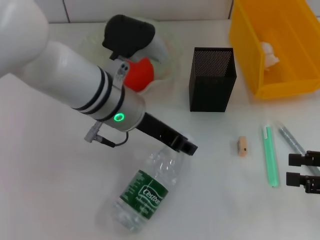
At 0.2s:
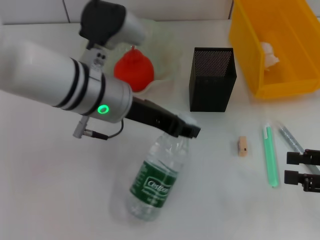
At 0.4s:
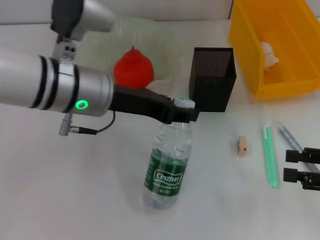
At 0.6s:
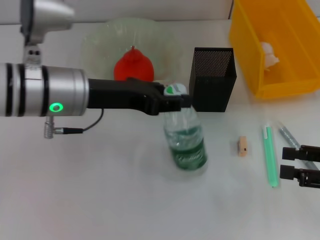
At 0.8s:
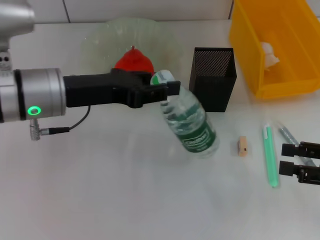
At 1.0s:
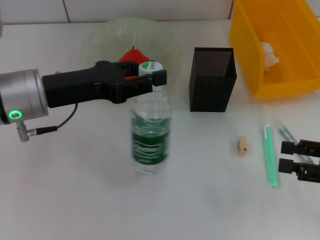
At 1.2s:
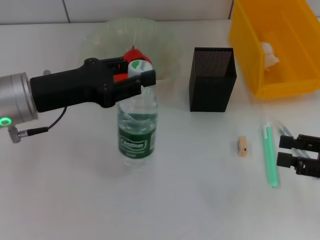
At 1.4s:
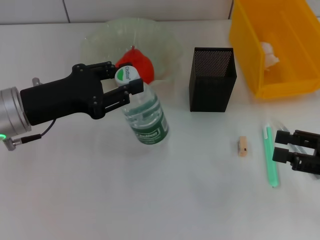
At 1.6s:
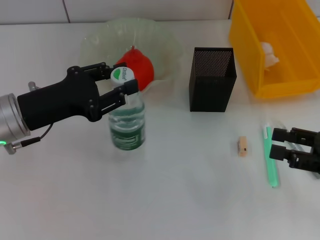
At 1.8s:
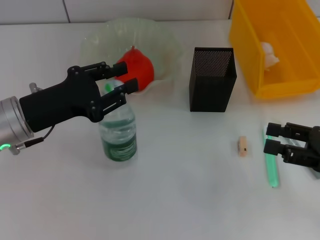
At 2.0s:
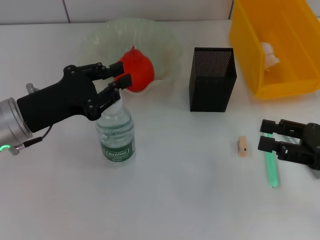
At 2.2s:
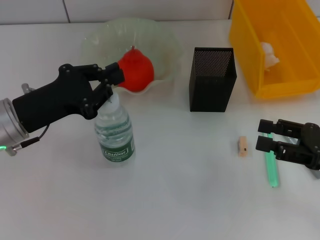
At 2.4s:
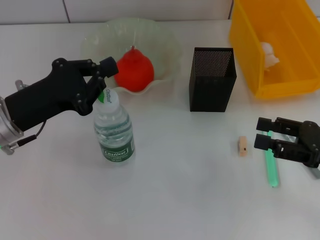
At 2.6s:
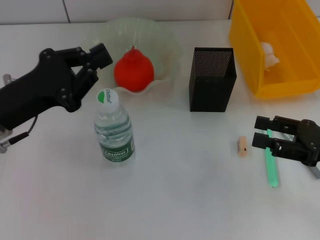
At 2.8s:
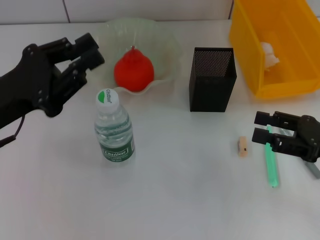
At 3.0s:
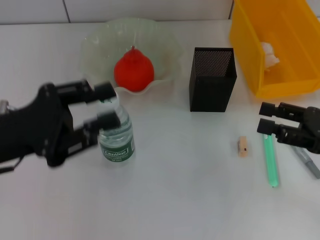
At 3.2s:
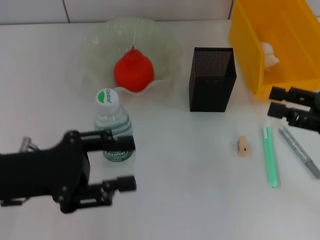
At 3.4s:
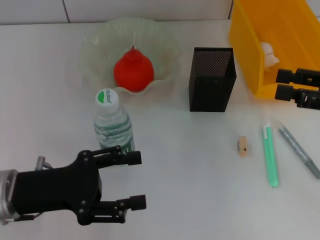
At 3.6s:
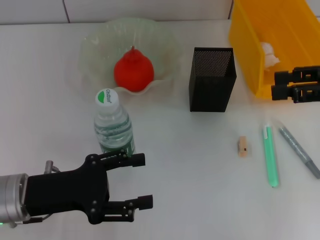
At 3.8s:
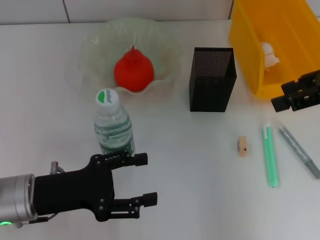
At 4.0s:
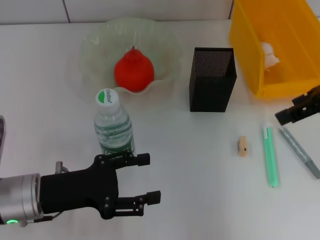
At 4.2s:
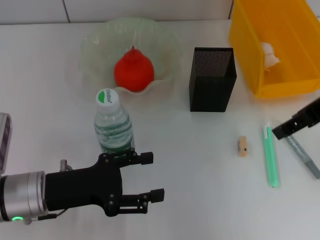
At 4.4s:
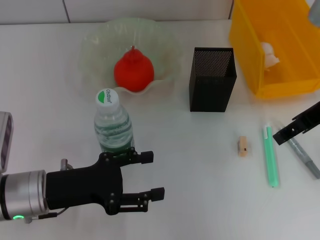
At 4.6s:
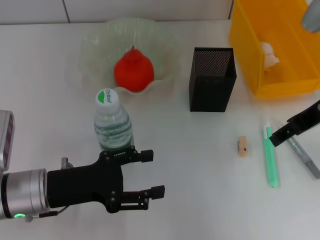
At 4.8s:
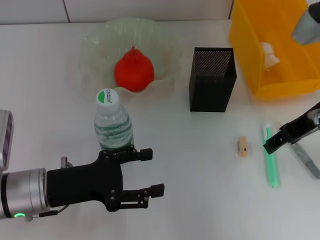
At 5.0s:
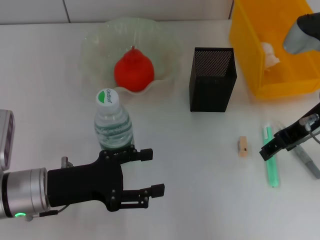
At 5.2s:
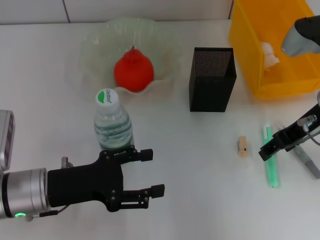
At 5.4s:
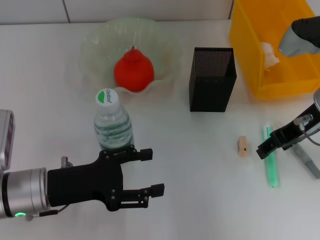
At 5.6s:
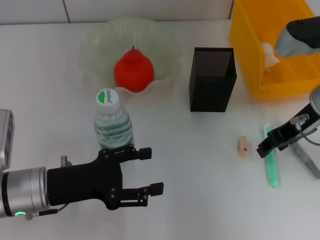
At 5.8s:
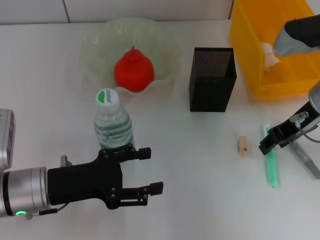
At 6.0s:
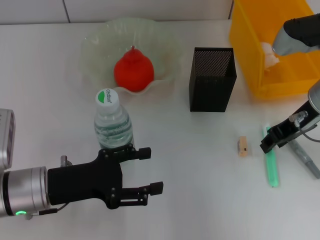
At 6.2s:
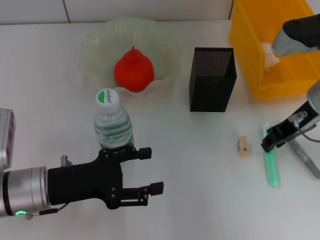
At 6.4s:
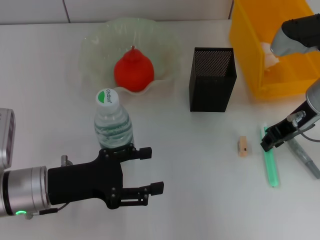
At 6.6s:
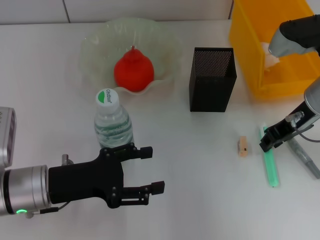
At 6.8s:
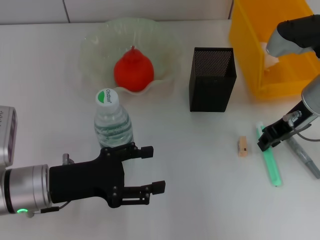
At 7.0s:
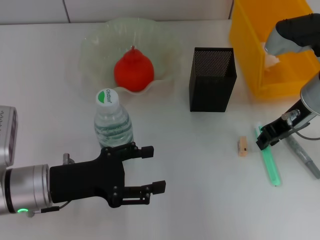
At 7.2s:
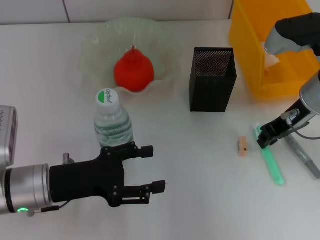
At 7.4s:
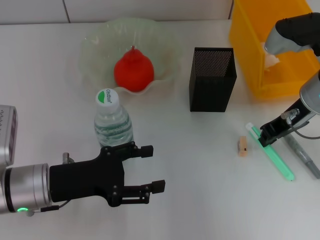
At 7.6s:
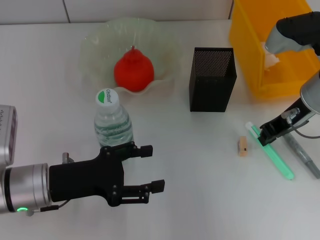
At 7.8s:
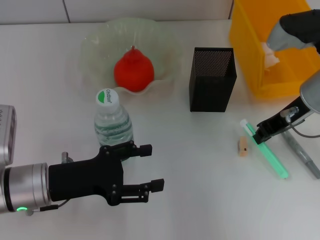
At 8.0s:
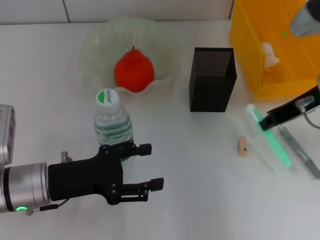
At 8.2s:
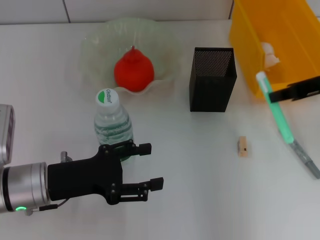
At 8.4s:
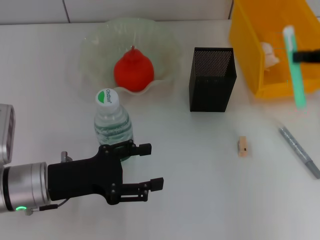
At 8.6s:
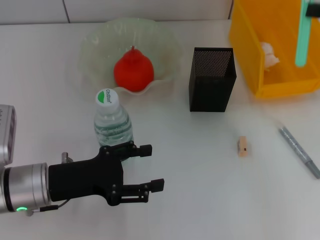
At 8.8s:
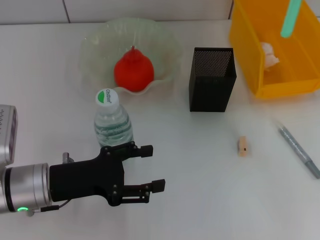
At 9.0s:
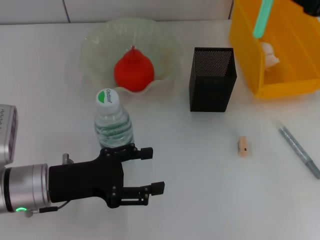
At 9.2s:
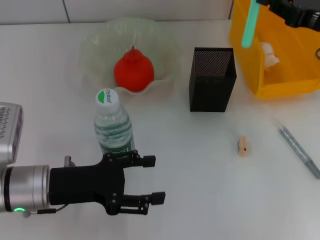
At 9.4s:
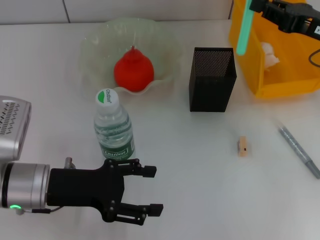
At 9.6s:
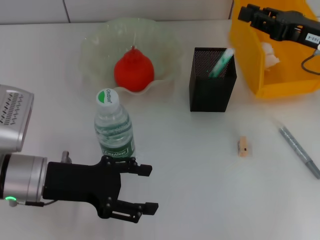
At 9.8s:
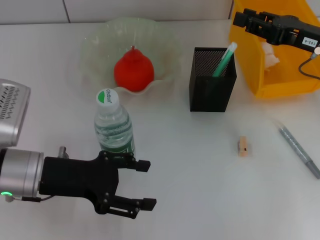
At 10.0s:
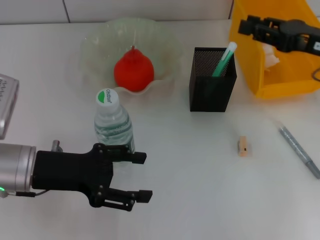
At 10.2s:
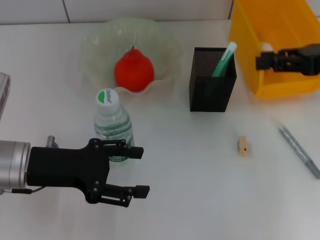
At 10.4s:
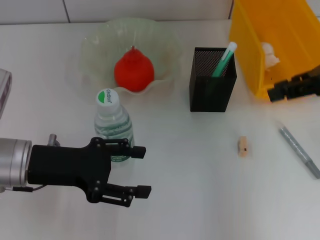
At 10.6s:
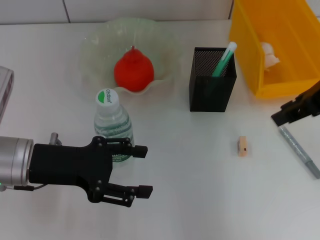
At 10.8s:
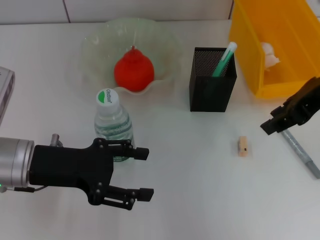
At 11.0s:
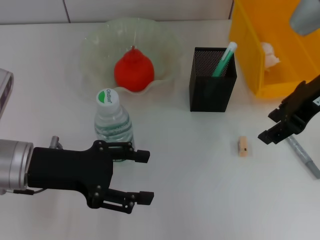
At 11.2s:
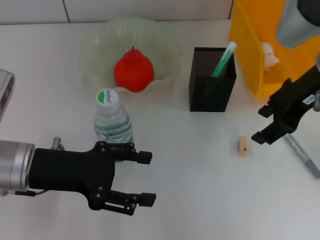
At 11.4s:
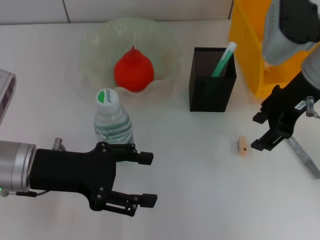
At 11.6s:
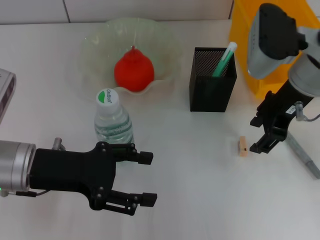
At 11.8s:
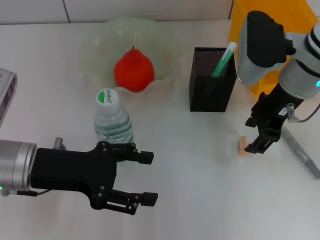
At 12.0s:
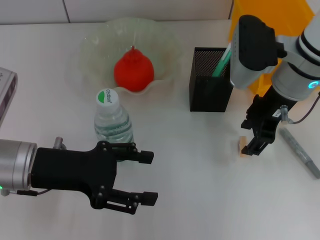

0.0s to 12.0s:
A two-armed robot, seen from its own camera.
Step, 0.0s to 2.4s: Place the water bottle on the table with the left hand.
Step, 2.6s to 7.2s: Grab the blue utility knife with the right hand.
Step, 7.4s to 10.0s: Place the blue utility knife into the pen holder with the right hand.
0.0s to 1.6s: The left gripper shifts about 15 cm to the left.
1.6s to 3.0s: The left gripper changes place by approximately 5 cm.
3.0s to 4.4s: The right gripper is displaced upward, to the left and forward by roughly 15 cm. The left gripper is displaced downward by roughly 10 cm, and opens up.
4.4s to 6.0s: The right gripper travels downward by about 5 cm.
6.0s to 7.6s: The right gripper closes up.
7.6s to 9.0s: The right gripper moves to the right, some 10 cm.
9.0s to 10.4s: The grippers both shift upward by about 5 cm. The right gripper opens.
10.4s to 12.0s: The right gripper travels to the left and downward by approximately 15 cm.

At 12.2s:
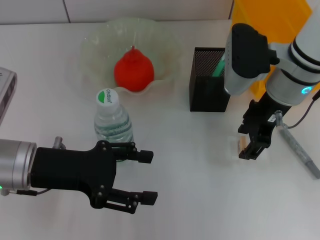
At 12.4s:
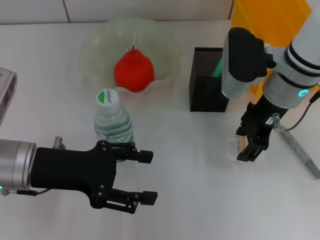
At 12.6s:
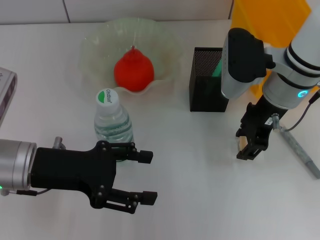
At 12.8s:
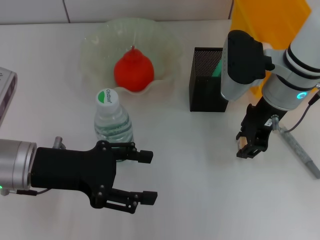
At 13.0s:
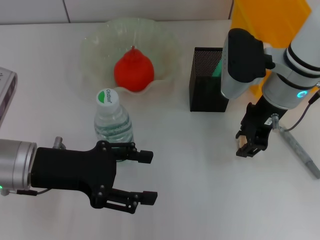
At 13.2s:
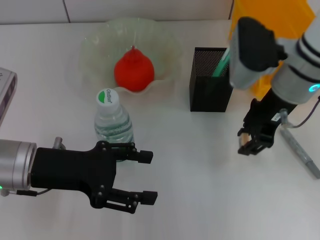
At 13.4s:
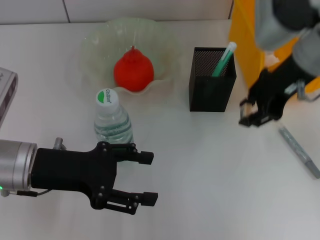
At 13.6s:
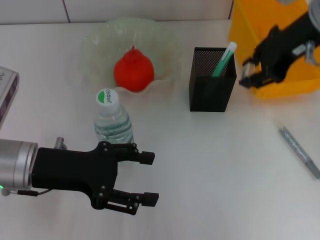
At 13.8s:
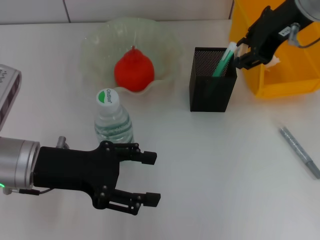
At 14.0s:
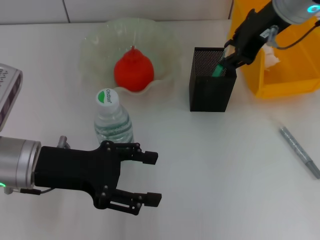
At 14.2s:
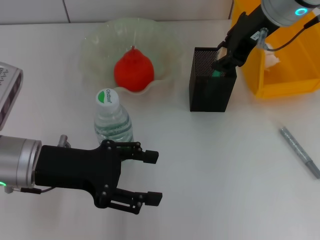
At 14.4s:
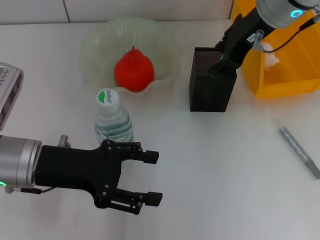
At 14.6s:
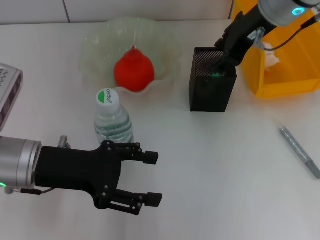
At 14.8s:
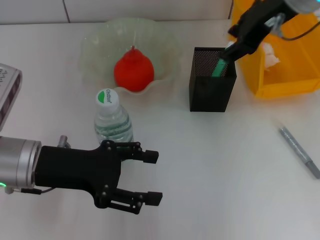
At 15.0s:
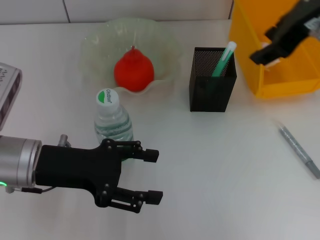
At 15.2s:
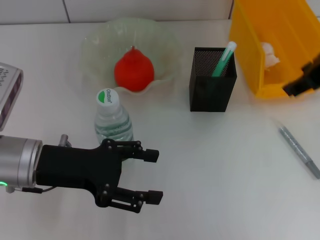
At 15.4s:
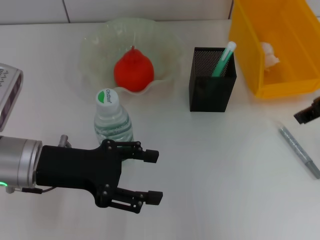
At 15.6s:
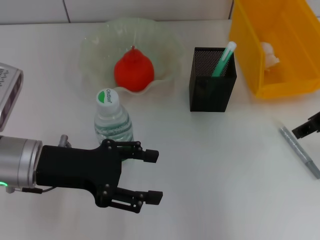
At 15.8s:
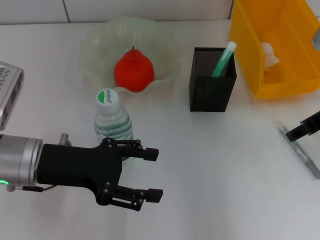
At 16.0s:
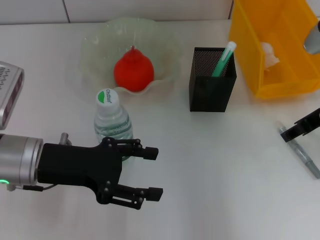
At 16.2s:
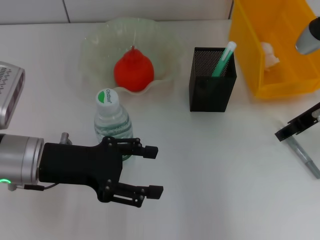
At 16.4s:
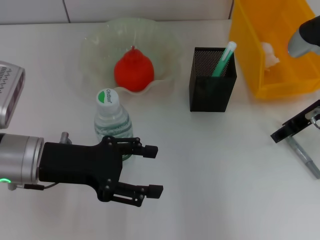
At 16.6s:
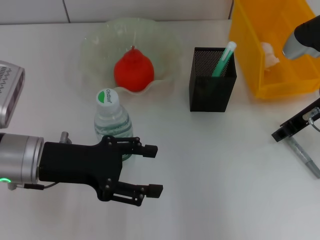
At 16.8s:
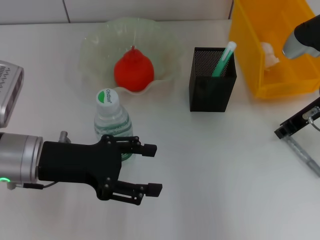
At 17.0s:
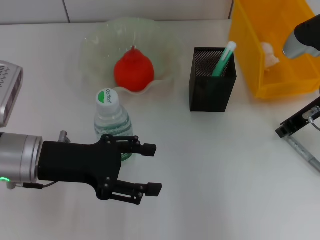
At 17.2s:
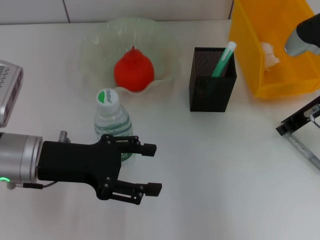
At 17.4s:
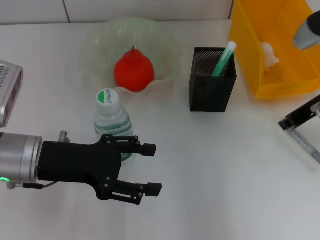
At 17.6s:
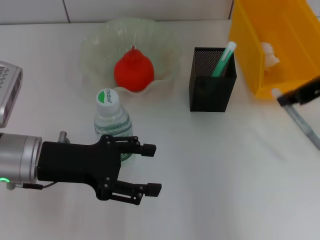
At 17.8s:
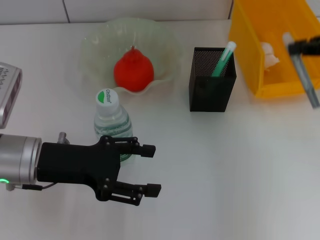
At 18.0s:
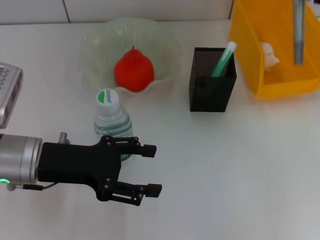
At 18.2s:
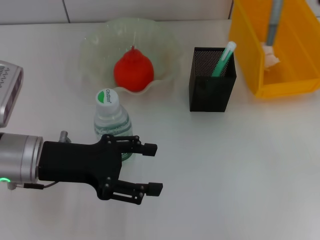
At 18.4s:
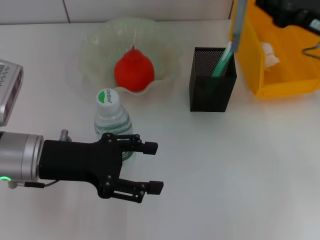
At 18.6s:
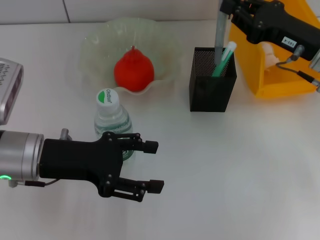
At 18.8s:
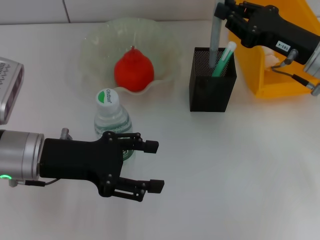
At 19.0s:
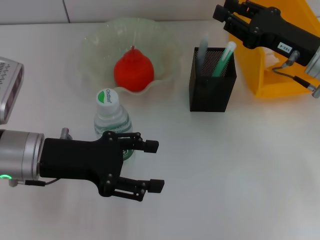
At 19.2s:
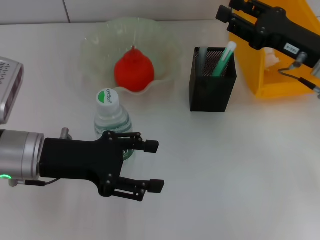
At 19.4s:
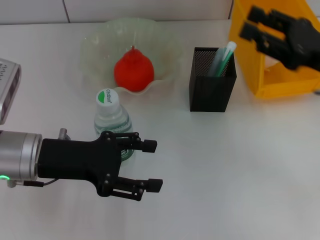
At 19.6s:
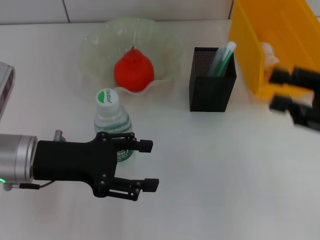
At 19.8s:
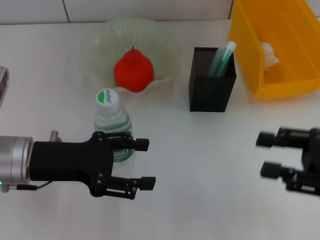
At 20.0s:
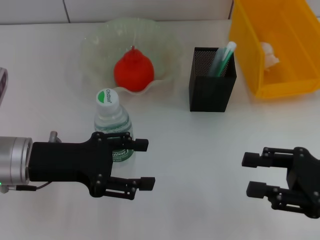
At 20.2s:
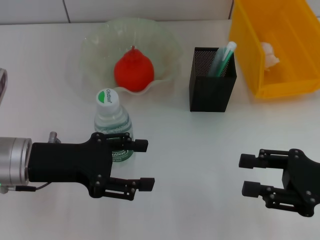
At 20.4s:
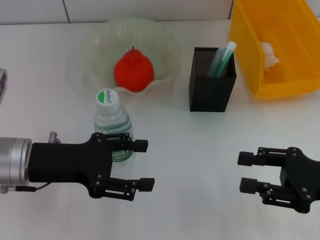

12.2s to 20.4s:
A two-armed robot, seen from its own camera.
Step, 13.0s to 14.6s: Put the eraser into the pen holder with the right hand.
Step, 14.8s to 16.8s: Grab the gray glue with the right hand.
Step, 17.0s to 19.2s: Place the gray glue into the pen holder with the right hand.
12.2s to 13.8s: The right gripper heads upward, covering approximately 10 cm.
13.8s to 15.4s: The right gripper goes some 10 cm to the right and backward.
15.4s to 17.2s: The right gripper travels downward by about 10 cm, and closes.
17.2s to 18.8s: The right gripper moves roughly 10 cm upward and comes back.
18.8s to 20.4s: The right gripper moves backward, about 15 cm, and opens.

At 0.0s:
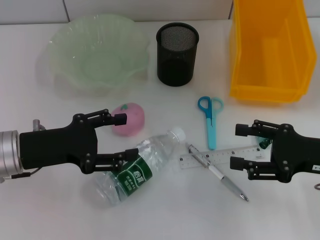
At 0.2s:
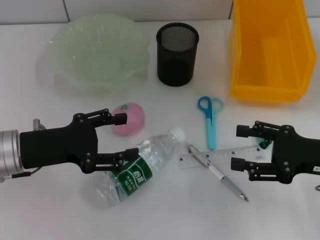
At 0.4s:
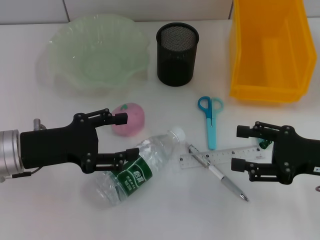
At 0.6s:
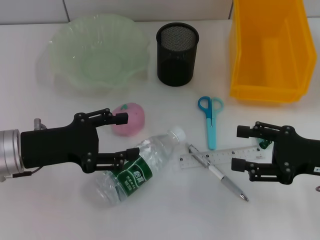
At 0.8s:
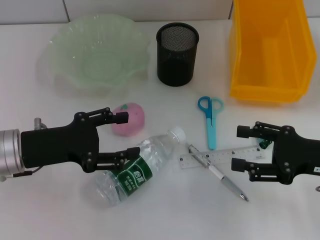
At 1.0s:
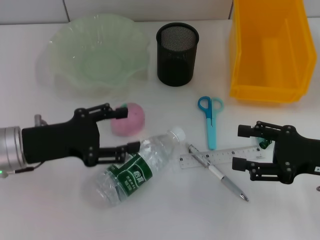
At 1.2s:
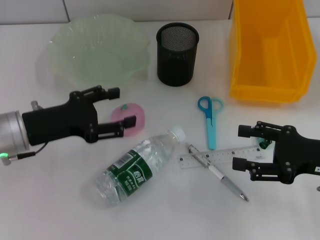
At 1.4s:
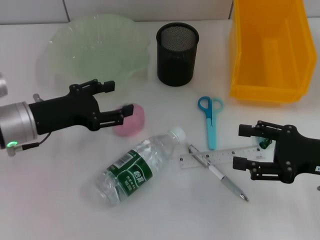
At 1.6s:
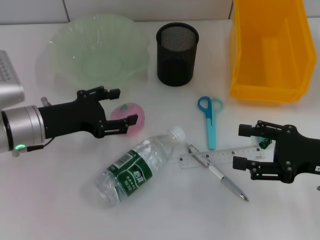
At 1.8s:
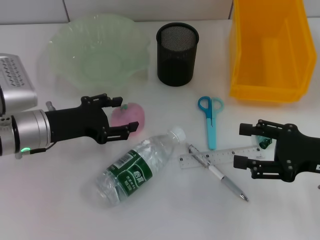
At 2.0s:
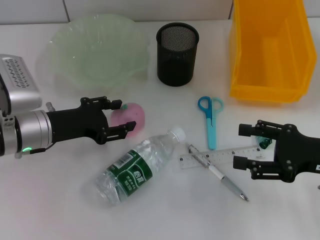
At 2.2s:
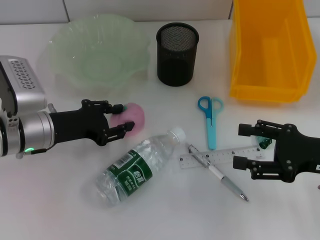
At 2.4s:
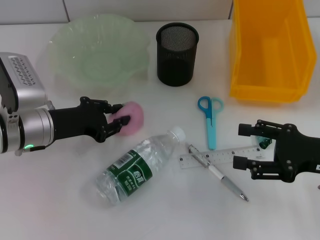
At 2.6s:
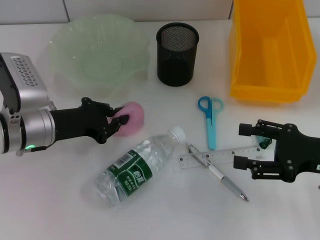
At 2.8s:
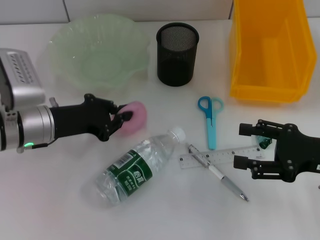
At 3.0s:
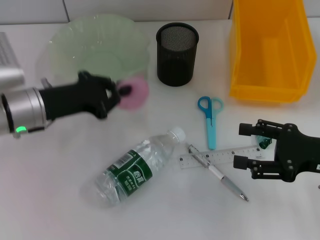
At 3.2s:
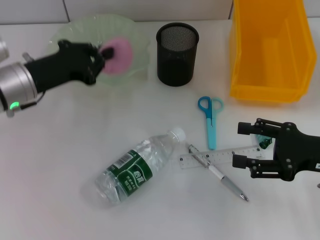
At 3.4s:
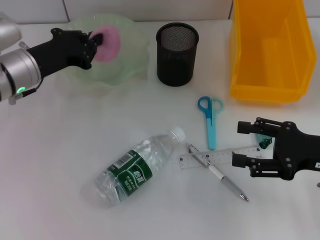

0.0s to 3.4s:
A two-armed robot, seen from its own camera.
Step, 0.0s to 2.2s: Grab the peach with the left hand.
0.0s to 1.6s: The left gripper moves approximately 5 cm.
1.6s to 3.4s: The left gripper shifts roughly 5 cm forward, and closes up.
